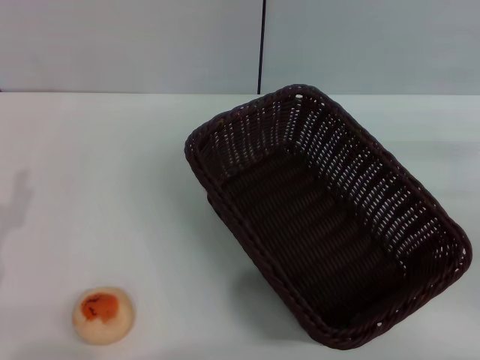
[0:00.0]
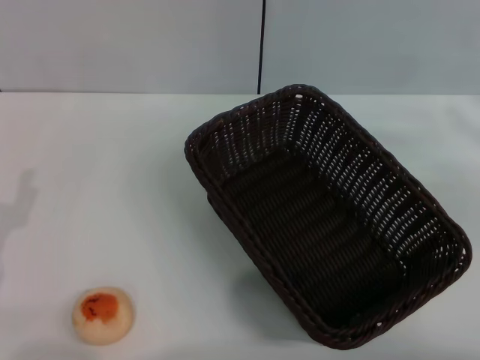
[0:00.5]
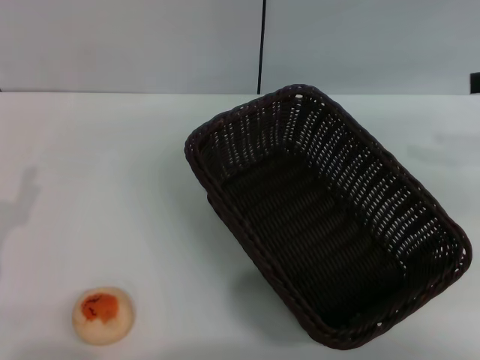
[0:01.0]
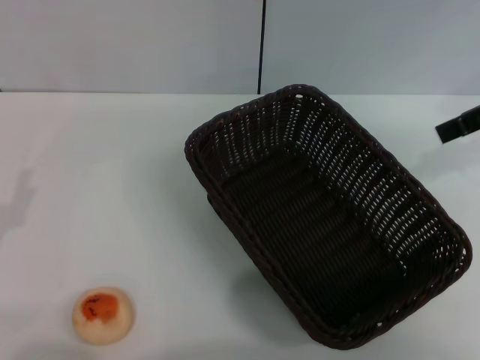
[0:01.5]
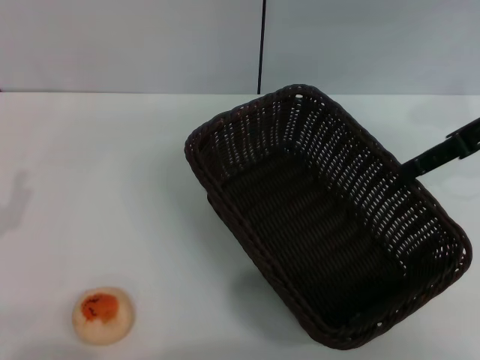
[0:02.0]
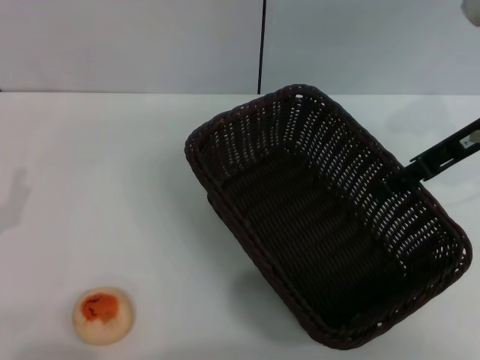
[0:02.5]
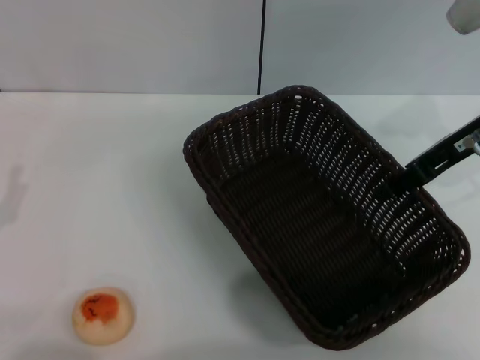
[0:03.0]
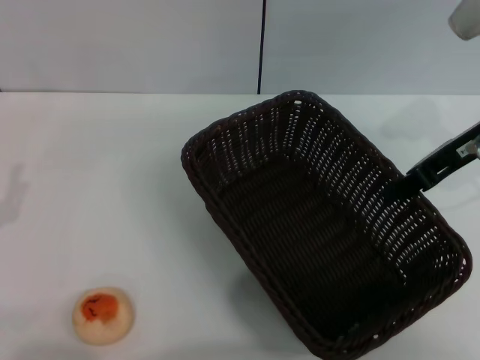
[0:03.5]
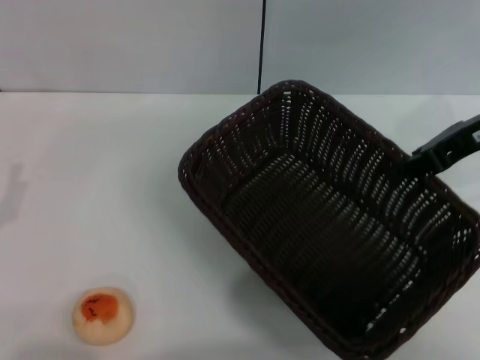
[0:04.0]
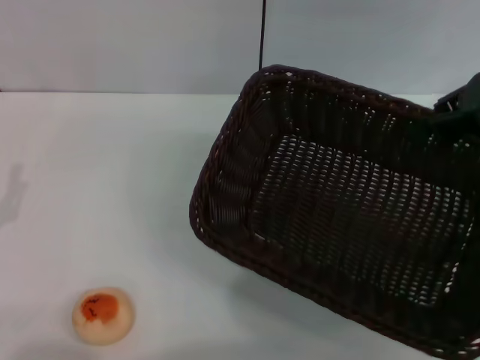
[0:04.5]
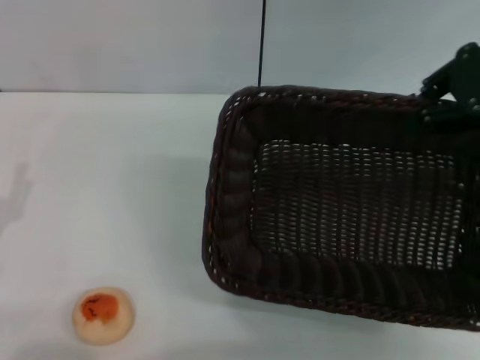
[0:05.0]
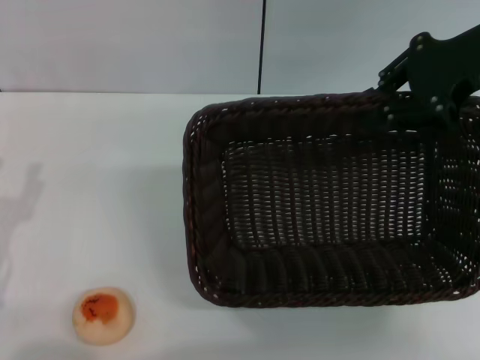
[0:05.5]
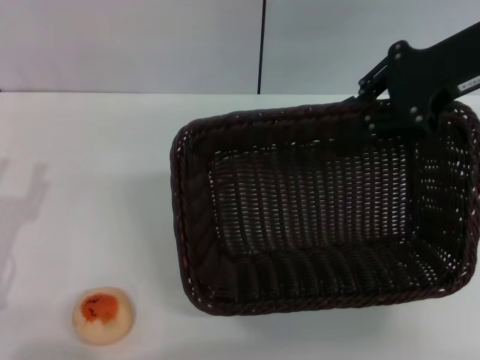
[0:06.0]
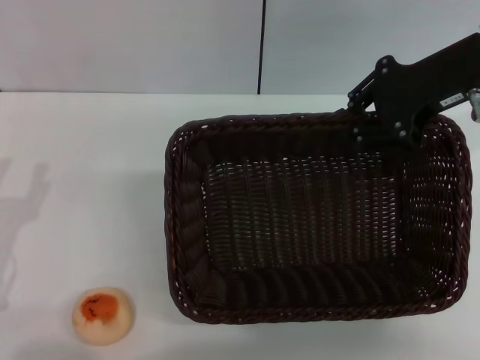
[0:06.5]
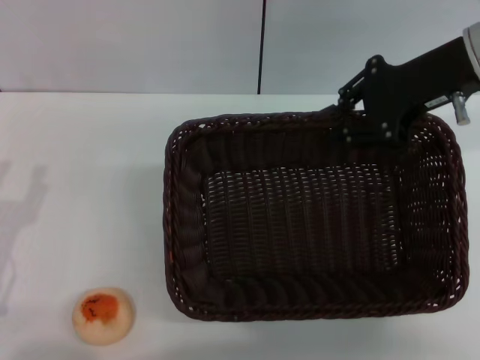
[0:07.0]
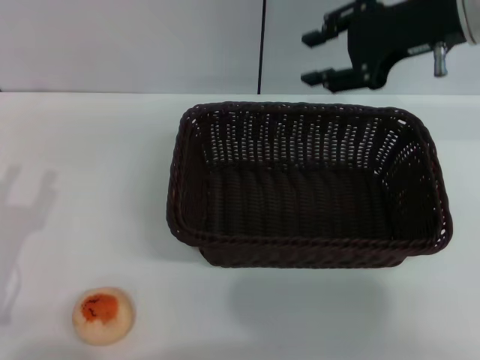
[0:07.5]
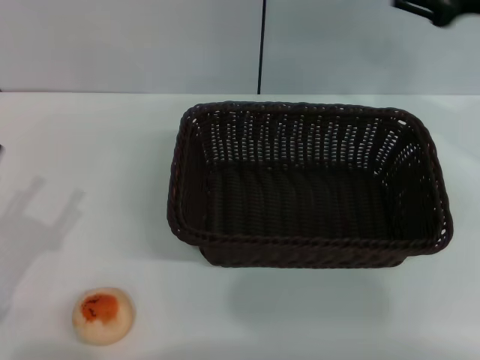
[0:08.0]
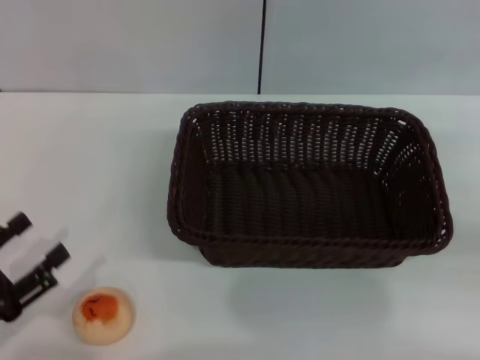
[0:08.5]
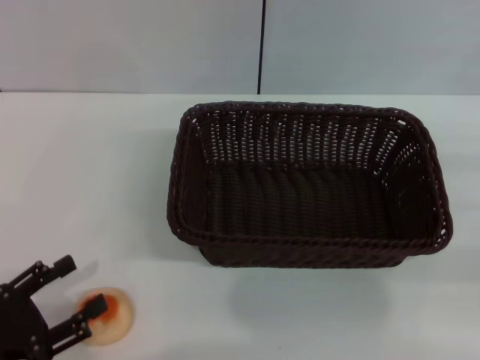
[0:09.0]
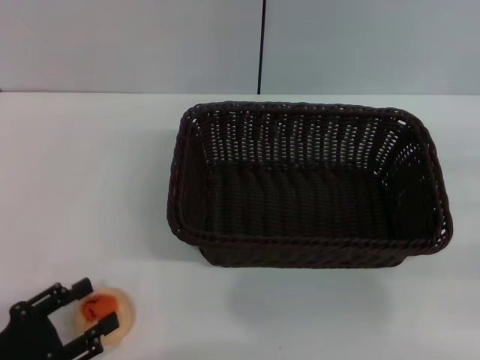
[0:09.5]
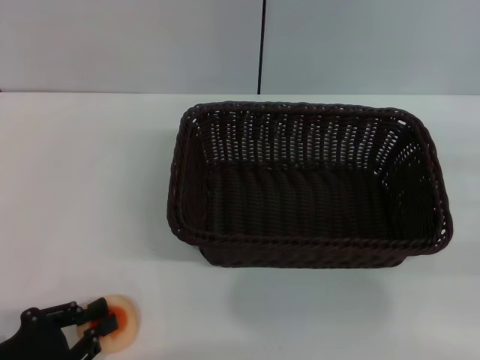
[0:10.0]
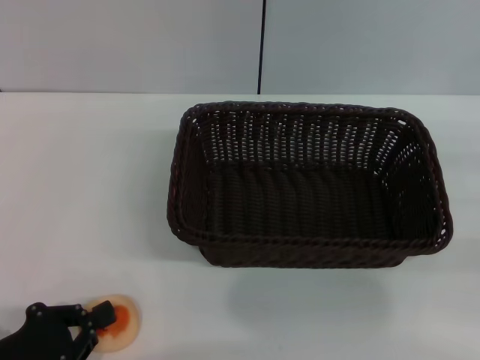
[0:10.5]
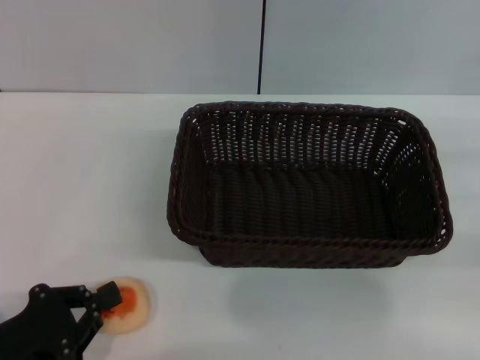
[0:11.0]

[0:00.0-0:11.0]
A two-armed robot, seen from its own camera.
Step, 0:00.0 to 0:07.5: Move the basket to the center of view with the right gripper.
0:00.0 to 0:02.0: The right gripper is displaced upward, to the left and forward by roughly 20 cm.
0:02.0 to 0:03.5: The right gripper closes its fingers.
0:03.5 to 0:05.5: The right gripper travels upward by approximately 5 cm.
0:05.5 to 0:07.5: The right gripper opens its fingers.
0:07.5 to 0:09.0: The right gripper moves to the right, downward and backward, roughly 30 cm; the left gripper ends up roughly 5 cm from where it was.
0:09.0 to 0:11.0: The left gripper closes.

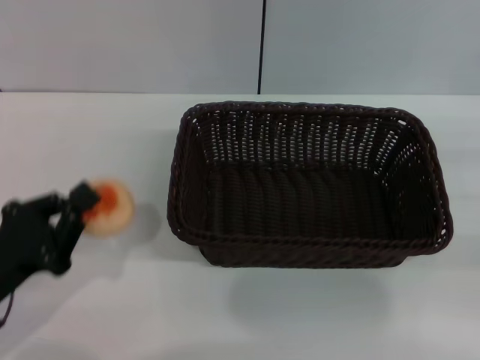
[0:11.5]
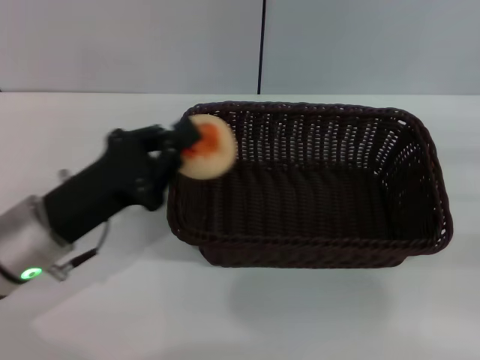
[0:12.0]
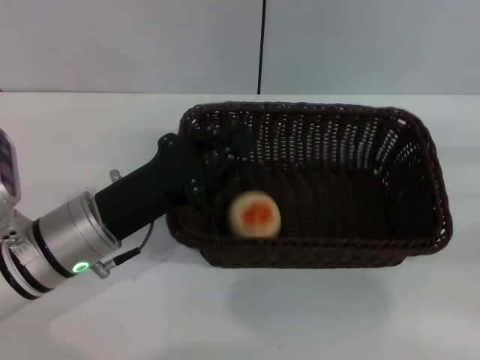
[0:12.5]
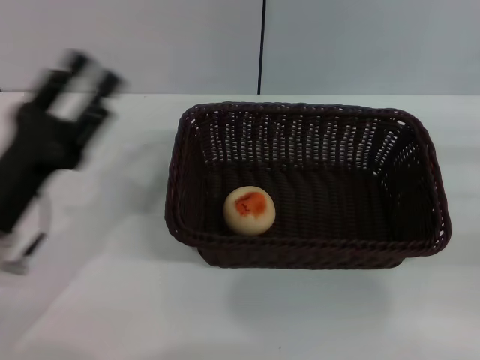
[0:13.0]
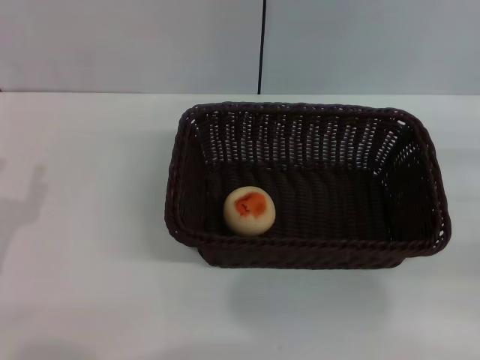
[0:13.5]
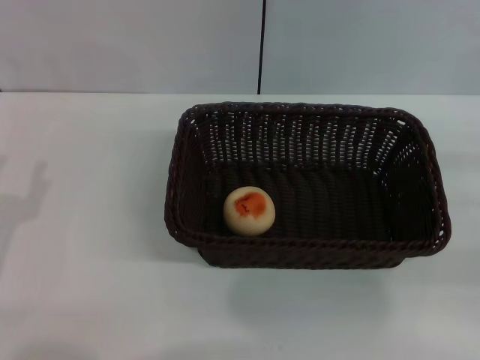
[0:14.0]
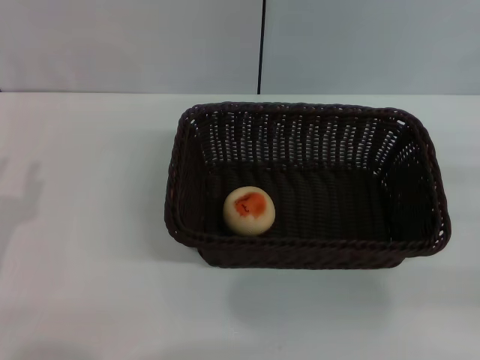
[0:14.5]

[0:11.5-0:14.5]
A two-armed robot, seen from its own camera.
Step, 0:12.0 to 0:12.5: Place the egg yolk pastry into the basket with the left gripper.
0:11.5 to 0:13.0: The left gripper opens up.
0:13.0 to 0:14.5: The left gripper shifts roughly 5 cm to the left.
